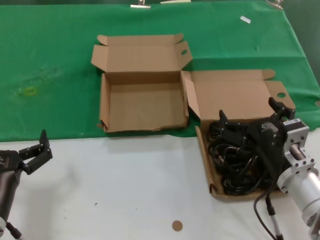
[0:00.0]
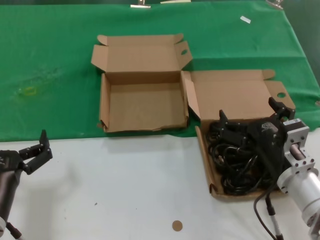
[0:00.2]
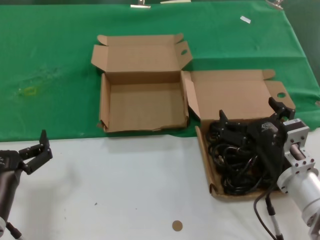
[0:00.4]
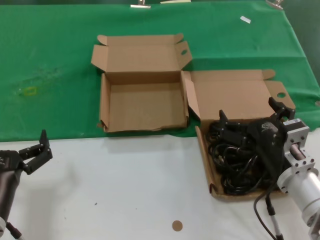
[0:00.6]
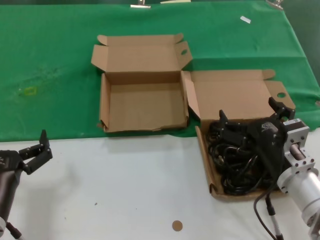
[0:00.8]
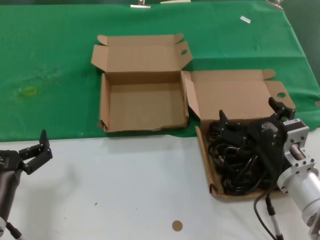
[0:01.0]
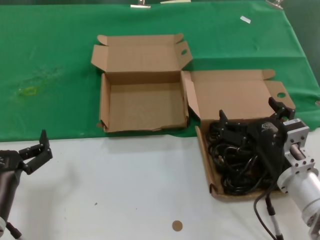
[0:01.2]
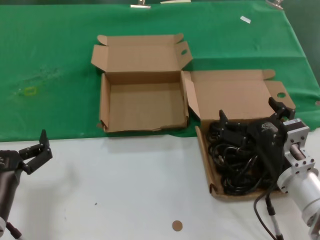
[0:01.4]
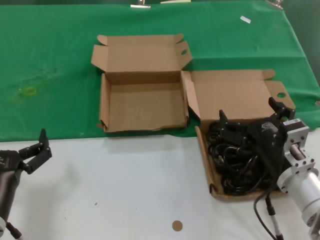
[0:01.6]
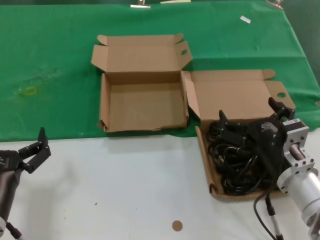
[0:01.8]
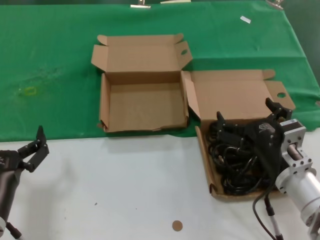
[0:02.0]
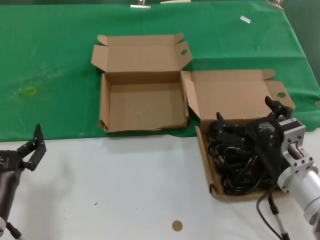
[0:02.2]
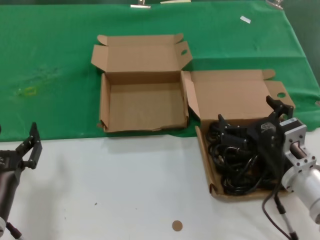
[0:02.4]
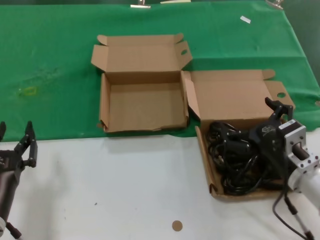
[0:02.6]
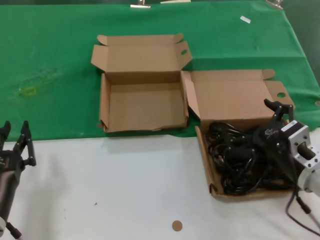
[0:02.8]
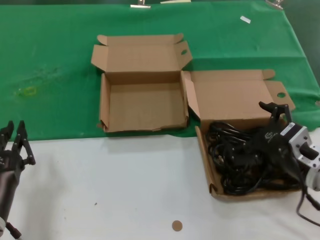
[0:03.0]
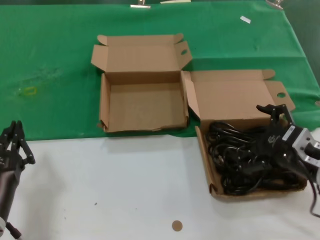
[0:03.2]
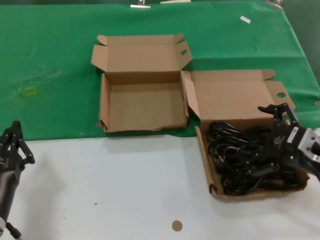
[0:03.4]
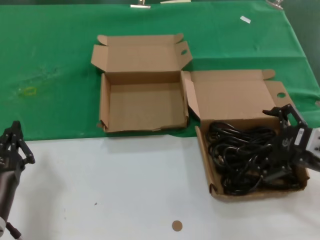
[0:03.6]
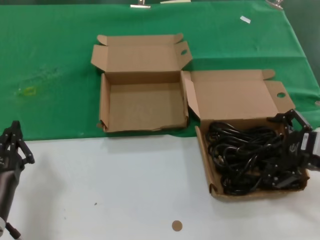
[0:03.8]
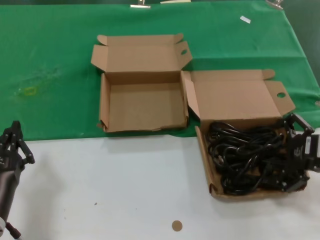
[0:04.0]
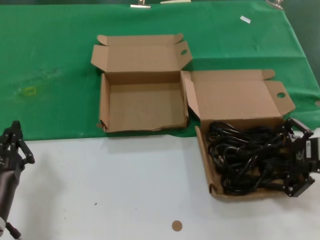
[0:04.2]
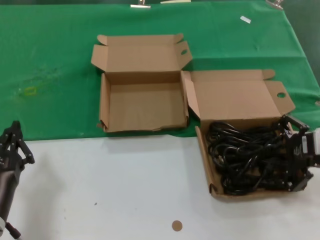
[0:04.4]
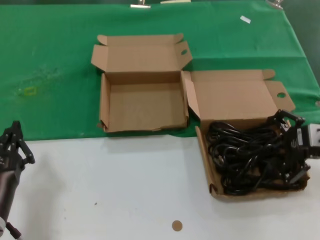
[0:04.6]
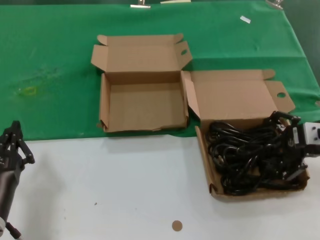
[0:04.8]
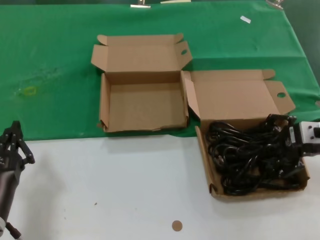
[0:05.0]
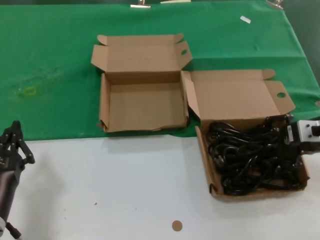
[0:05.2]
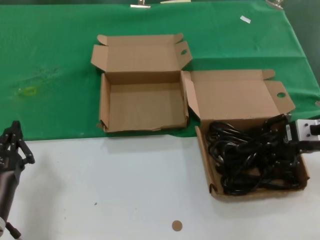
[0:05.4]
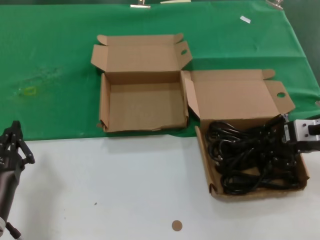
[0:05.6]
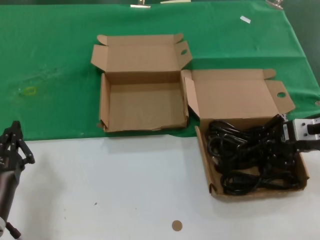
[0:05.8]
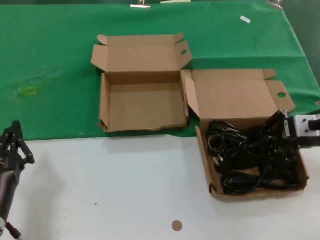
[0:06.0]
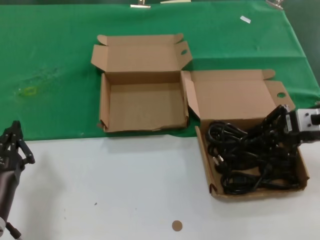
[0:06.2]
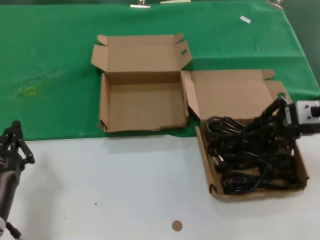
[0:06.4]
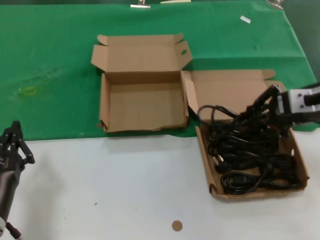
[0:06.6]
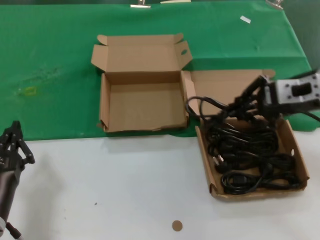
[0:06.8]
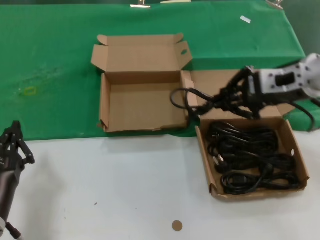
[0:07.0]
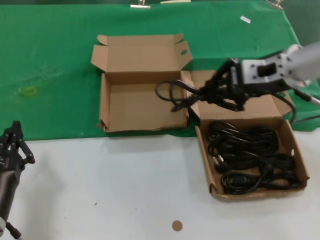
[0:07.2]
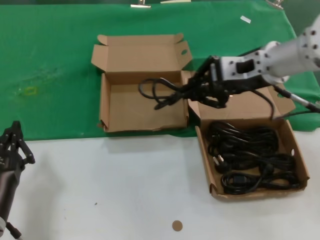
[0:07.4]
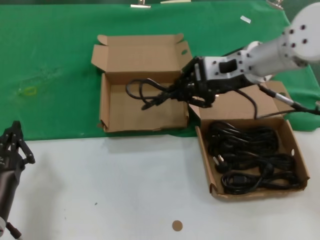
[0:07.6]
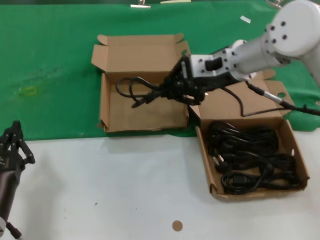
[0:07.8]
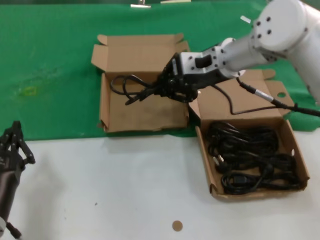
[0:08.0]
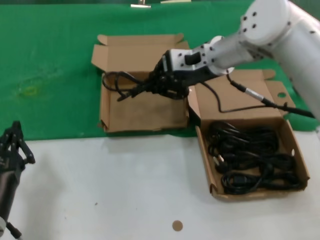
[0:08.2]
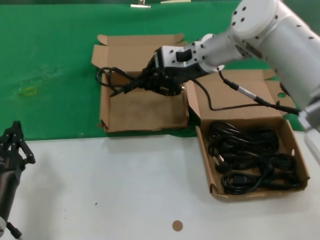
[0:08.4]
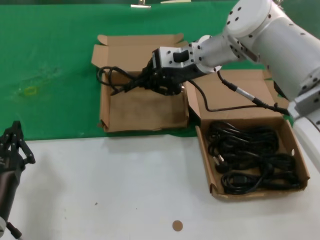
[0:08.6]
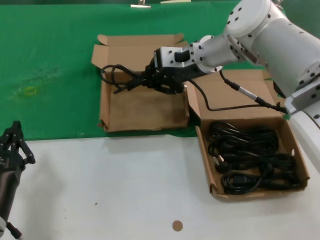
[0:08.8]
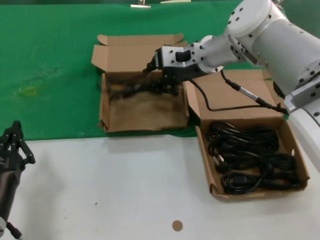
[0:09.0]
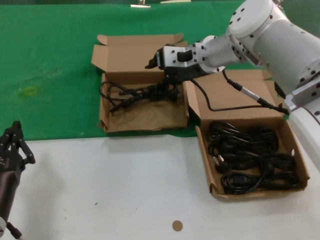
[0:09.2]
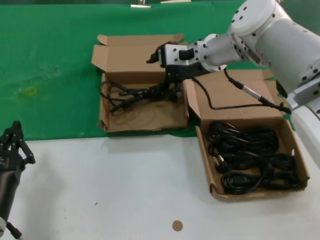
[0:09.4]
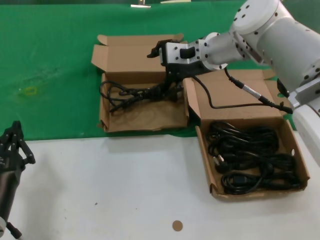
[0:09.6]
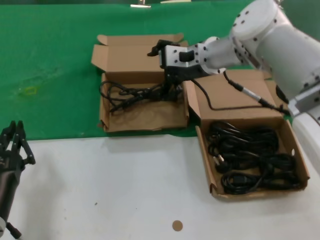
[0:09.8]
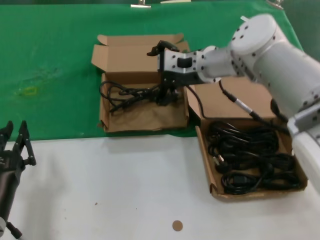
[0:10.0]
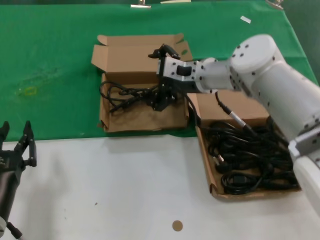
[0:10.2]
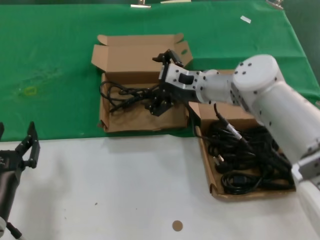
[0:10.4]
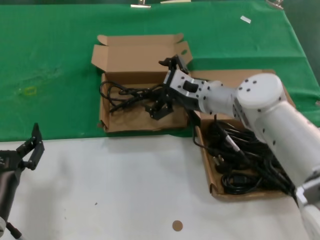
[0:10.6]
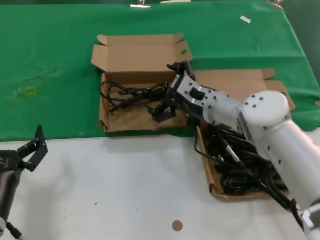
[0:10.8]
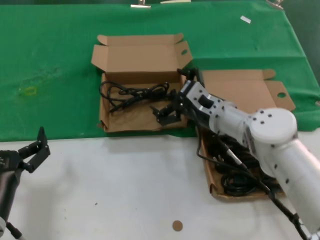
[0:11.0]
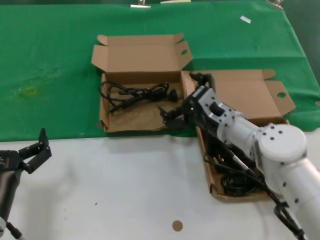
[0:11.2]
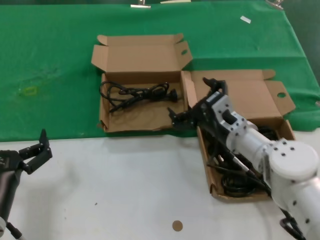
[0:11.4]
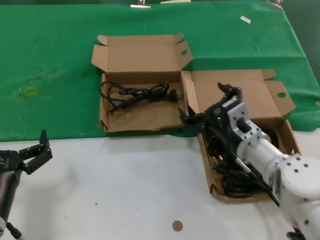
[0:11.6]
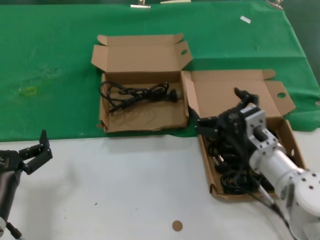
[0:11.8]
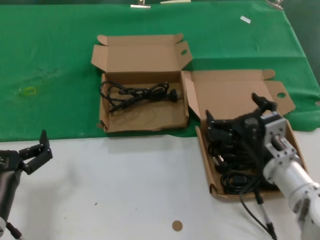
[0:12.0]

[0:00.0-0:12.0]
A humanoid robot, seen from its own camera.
Task of the whole recording: take the parts from the box containing them and put them into an empty box.
Step, 0.0 to 5.6 s: Grasp the data cable.
Step, 5.8 to 9.2 s: Place the data cable in the another box.
0.0 to 1.6 s: Both hands stay about where they are.
1.6 to 3.0 s: The right hand moves to the right, about 5 cm.
3.0 to 4.4 s: The right hand heads to the right and upward, covering approximately 10 cm.
4.4 to 6.0 s: The right hand goes about 5 cm forward.
6.0 to 7.6 s: The right hand goes approximately 20 cm to the left, upward and forward.
7.6 to 9.0 s: The right hand travels forward and to the left by approximately 10 cm.
9.0 to 10.4 s: The right hand is displaced downward by approximately 10 cm.
10.4 to 12.0 s: The right hand heads backward, downward and to the right, covering approximately 25 cm.

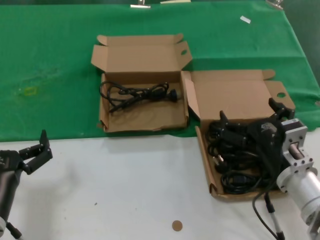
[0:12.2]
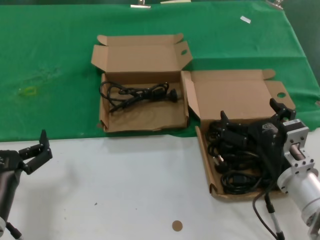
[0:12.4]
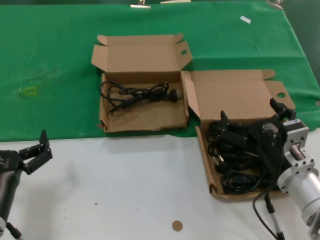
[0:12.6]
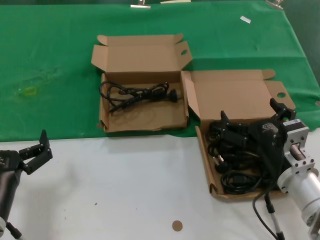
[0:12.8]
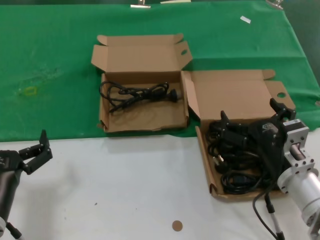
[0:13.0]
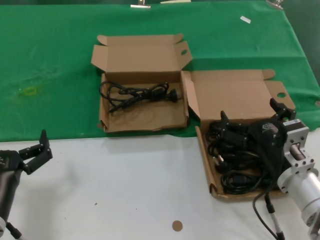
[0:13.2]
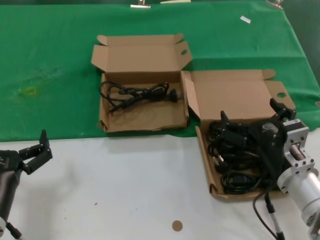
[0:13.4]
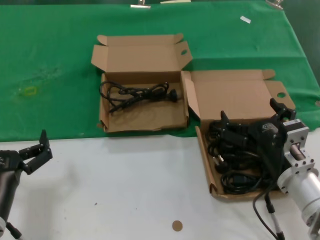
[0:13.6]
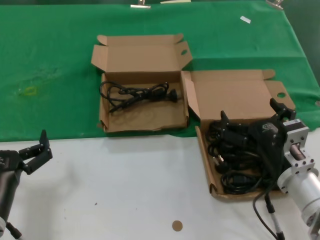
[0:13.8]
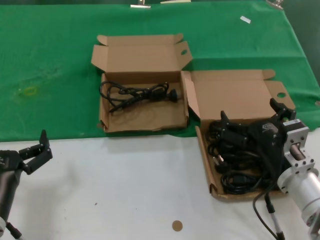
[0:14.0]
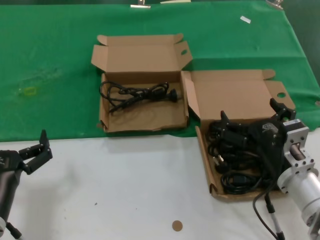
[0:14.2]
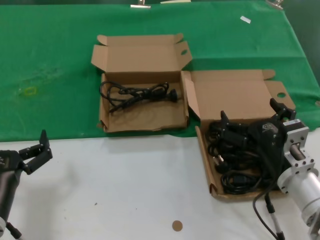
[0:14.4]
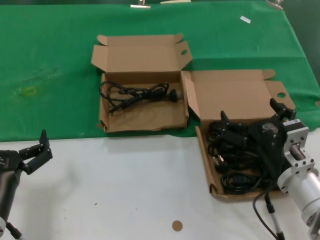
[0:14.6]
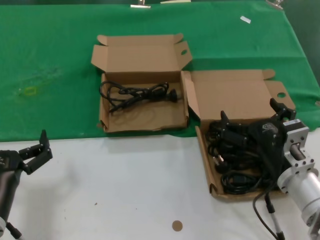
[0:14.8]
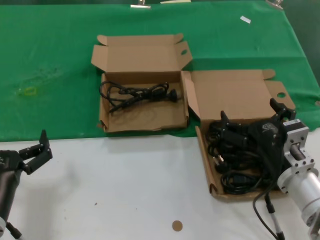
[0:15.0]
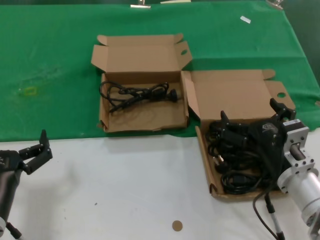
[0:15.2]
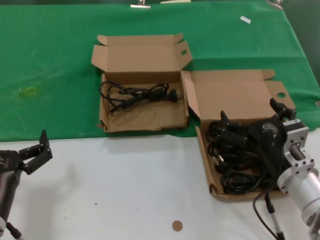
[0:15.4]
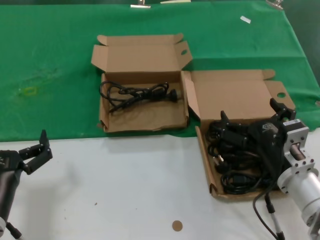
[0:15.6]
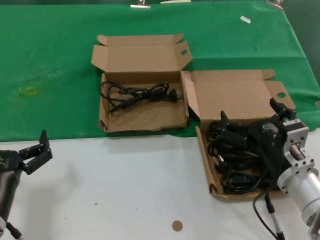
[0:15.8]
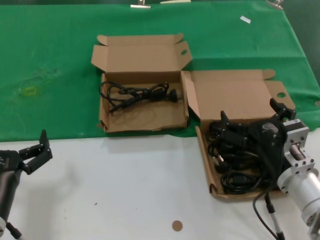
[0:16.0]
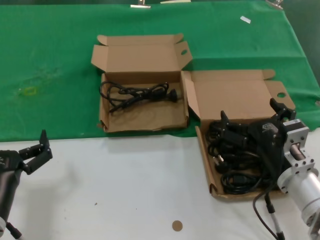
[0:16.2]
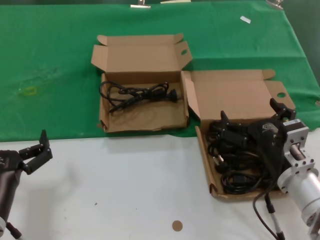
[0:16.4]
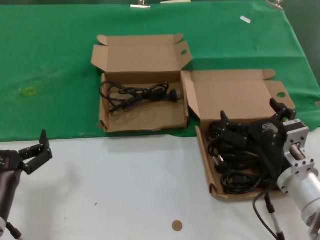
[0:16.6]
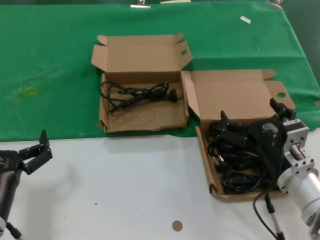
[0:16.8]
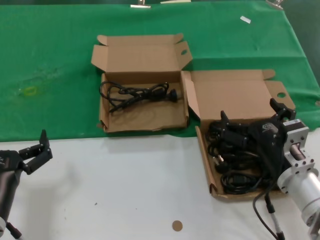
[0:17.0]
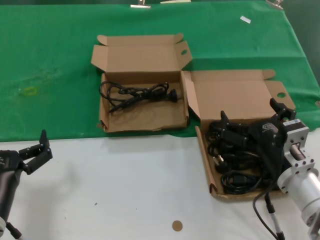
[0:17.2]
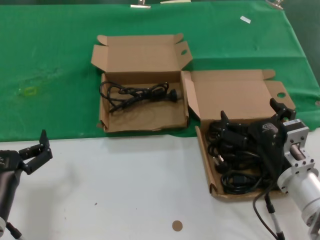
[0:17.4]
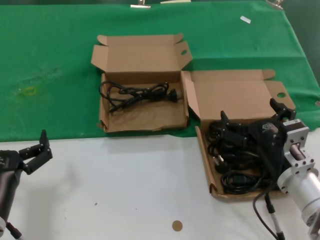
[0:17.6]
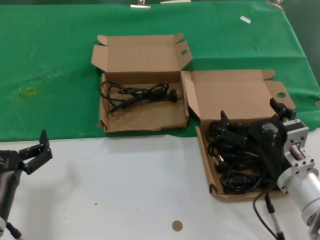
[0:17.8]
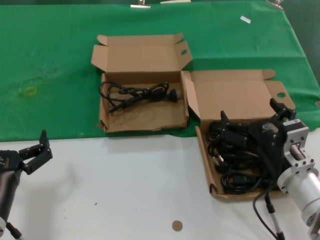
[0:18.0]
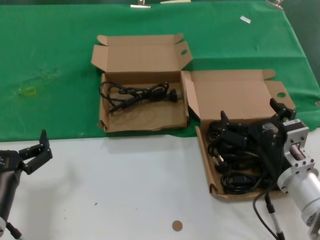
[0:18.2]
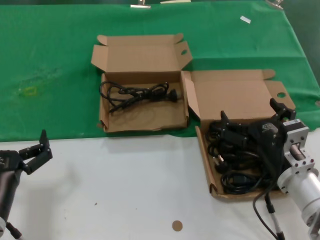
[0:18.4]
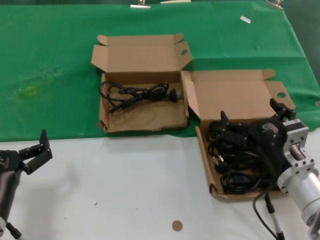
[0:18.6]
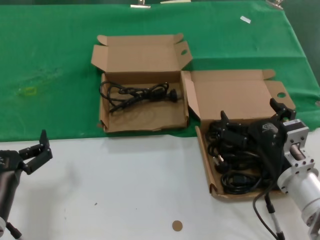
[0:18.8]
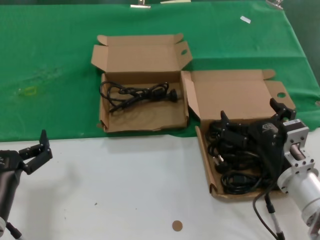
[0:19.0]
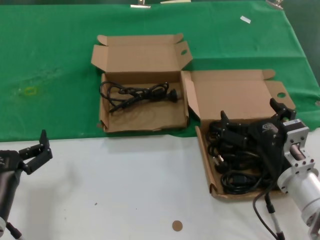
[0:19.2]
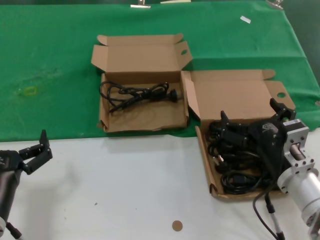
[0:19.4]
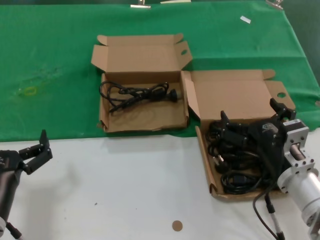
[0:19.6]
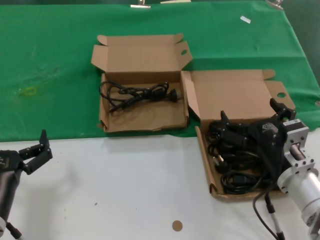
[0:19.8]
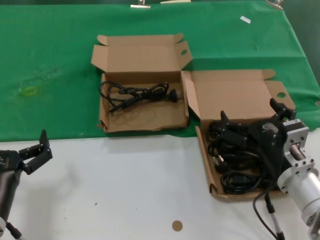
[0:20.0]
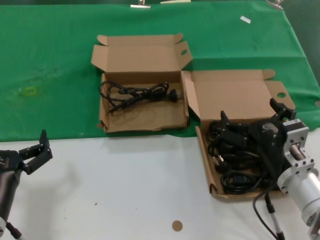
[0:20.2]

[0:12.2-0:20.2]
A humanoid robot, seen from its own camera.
Task of the whole recording: take the parts from the box containing them and put them into an empty box.
12.2 to 20.2 s: Both hands stay about where they are.

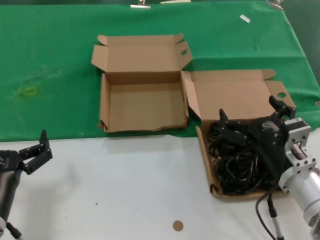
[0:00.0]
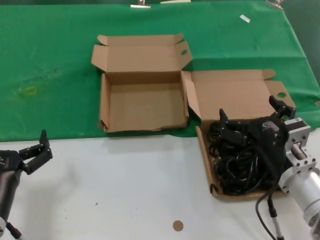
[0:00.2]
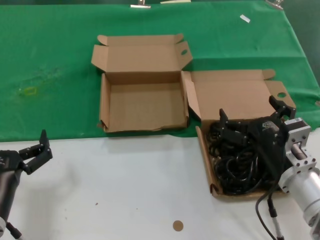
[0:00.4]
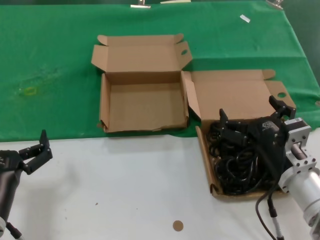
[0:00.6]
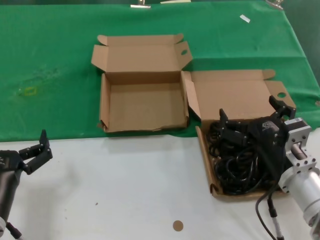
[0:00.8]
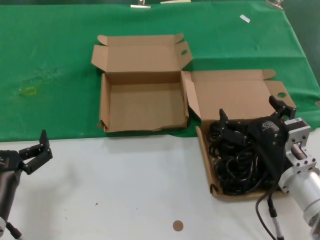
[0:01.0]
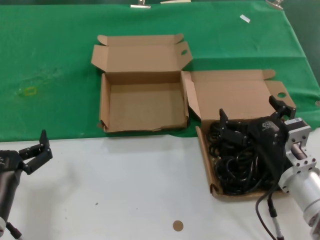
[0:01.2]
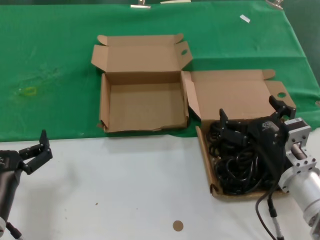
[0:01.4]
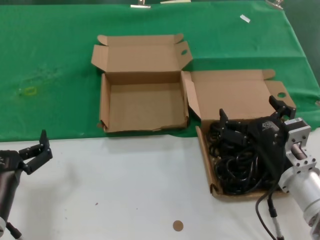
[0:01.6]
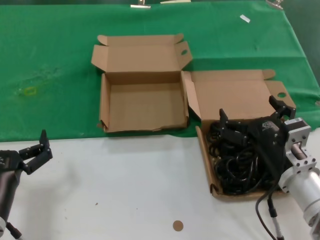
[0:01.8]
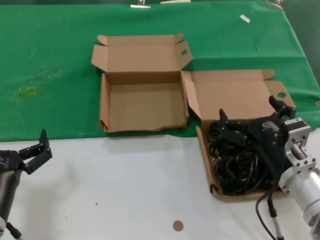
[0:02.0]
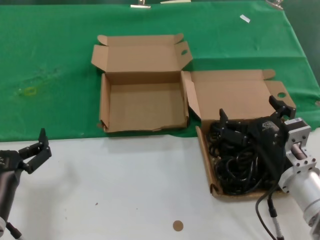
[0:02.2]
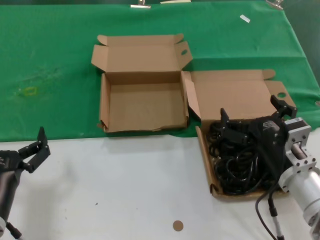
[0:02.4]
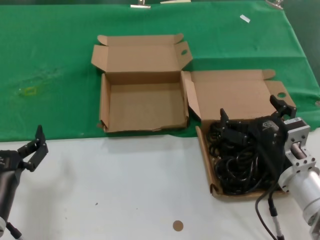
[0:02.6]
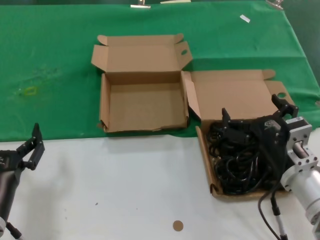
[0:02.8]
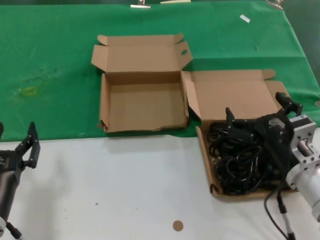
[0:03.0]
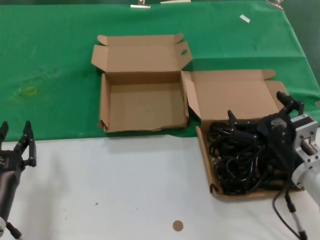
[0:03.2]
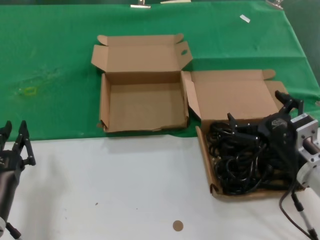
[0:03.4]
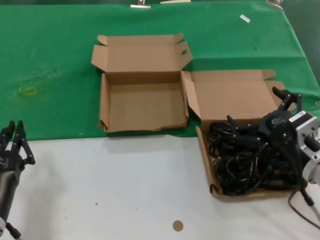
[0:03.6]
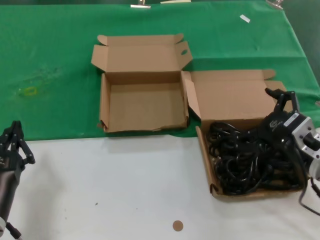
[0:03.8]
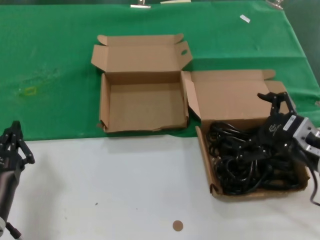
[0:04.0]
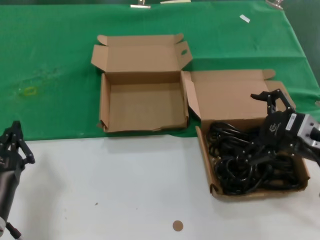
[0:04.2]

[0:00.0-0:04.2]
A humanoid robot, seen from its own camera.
Task of the whole recording: take the parts from the box containing them and put them into an empty box.
0.0 to 2.8 s: Neither hand changes place.
2.8 to 4.2 s: The right hand travels to the right and upward by approximately 10 cm.
